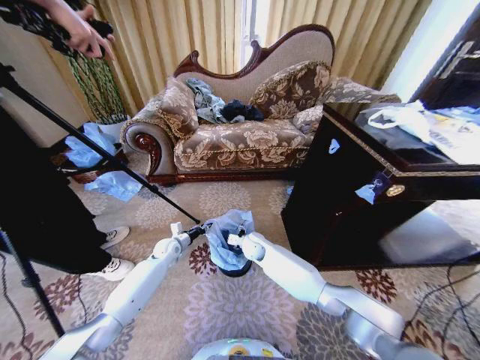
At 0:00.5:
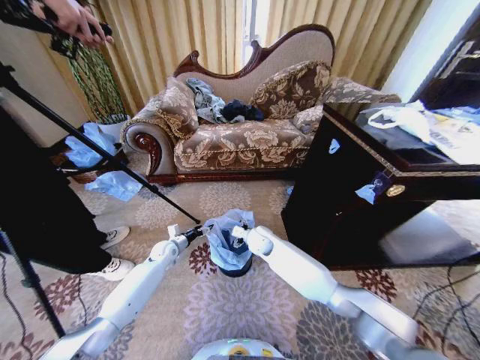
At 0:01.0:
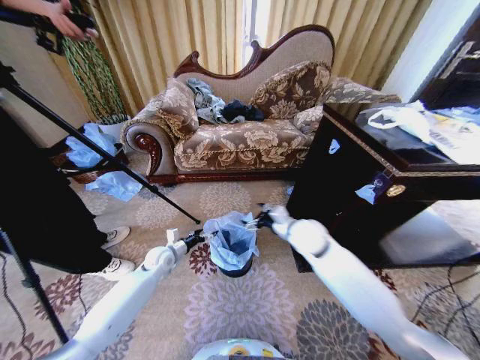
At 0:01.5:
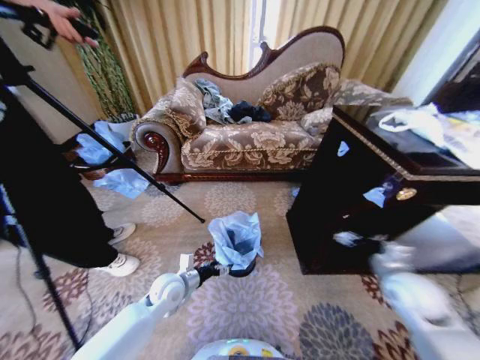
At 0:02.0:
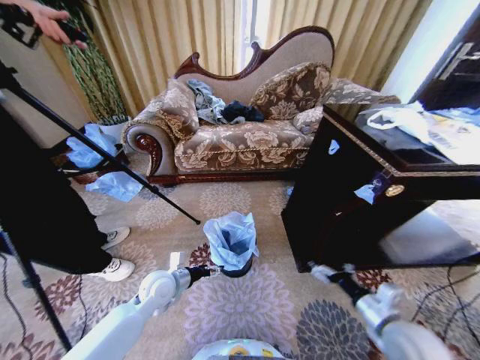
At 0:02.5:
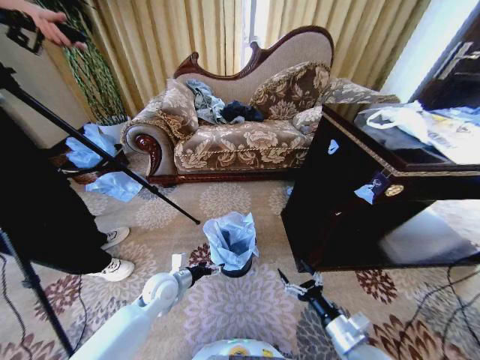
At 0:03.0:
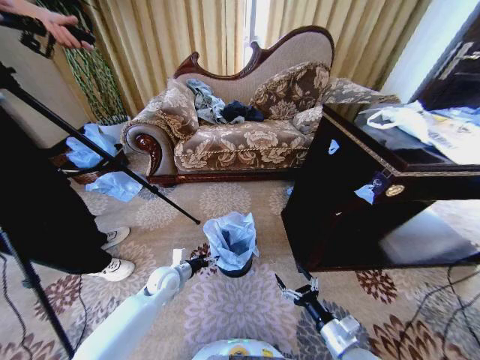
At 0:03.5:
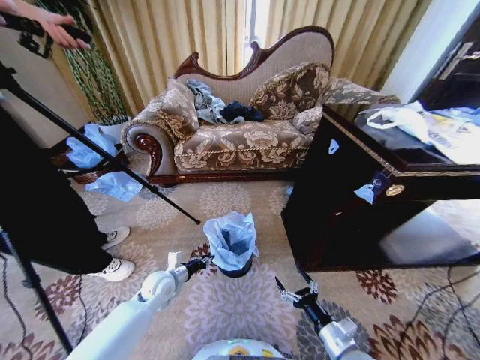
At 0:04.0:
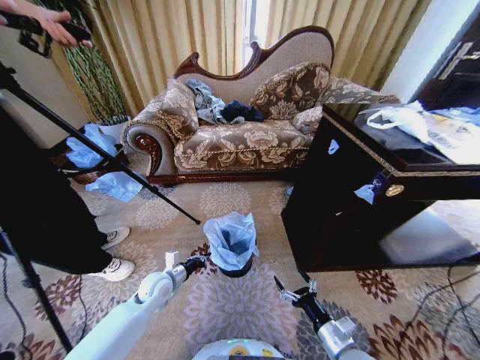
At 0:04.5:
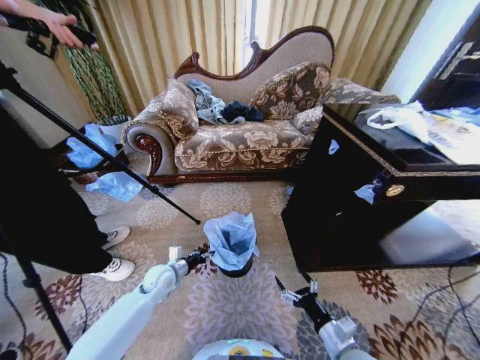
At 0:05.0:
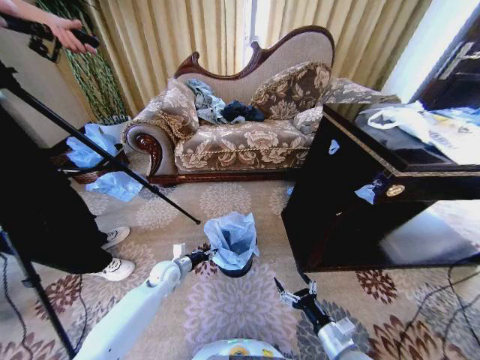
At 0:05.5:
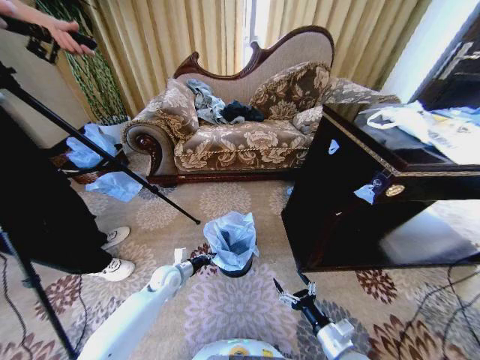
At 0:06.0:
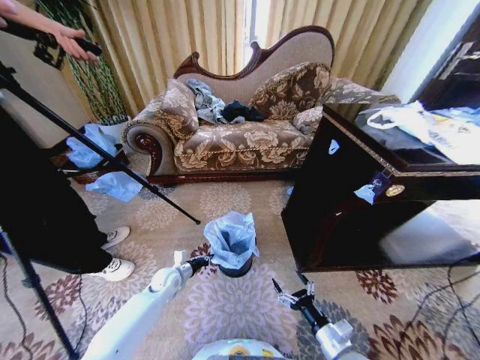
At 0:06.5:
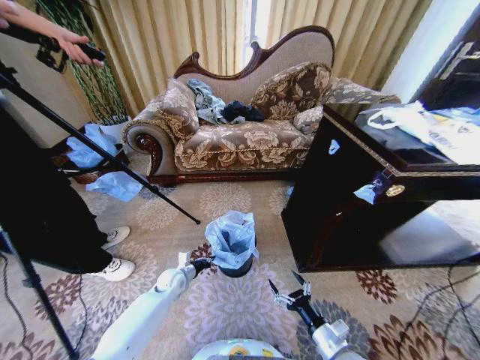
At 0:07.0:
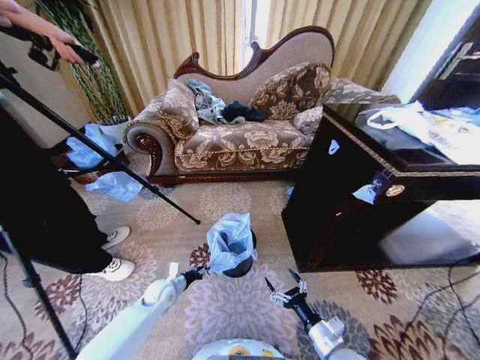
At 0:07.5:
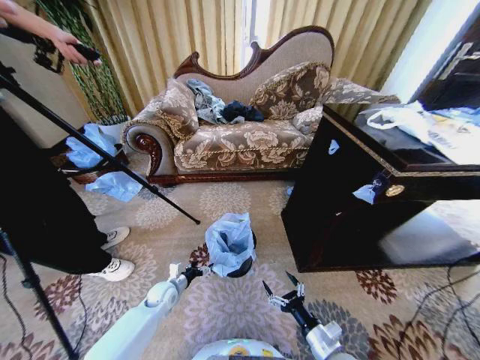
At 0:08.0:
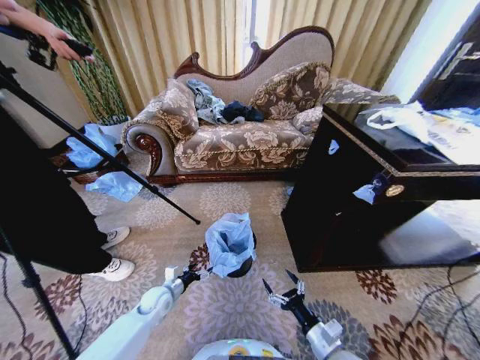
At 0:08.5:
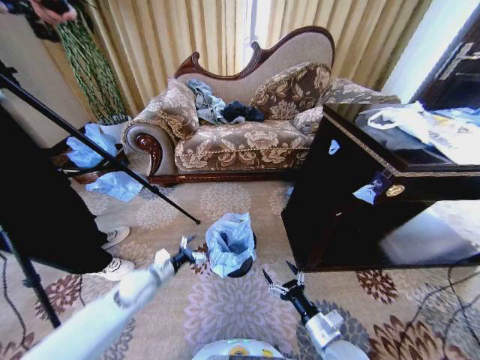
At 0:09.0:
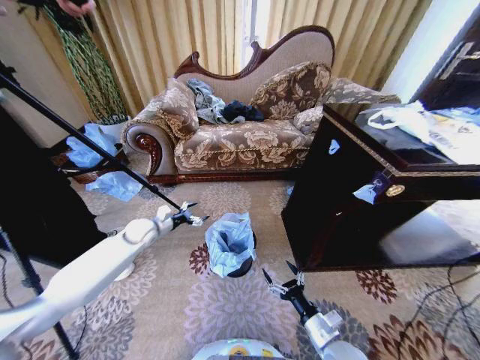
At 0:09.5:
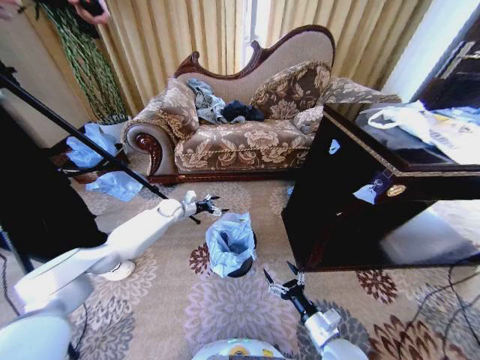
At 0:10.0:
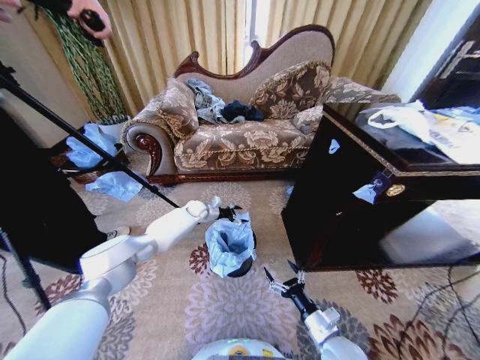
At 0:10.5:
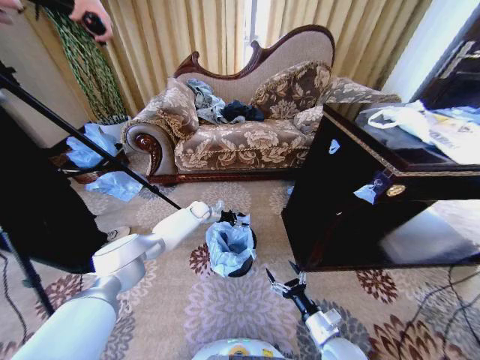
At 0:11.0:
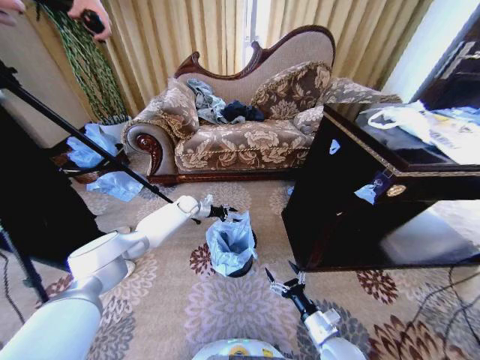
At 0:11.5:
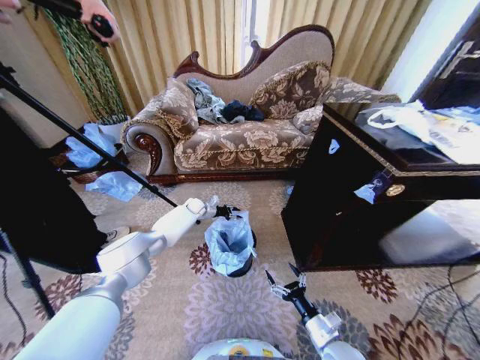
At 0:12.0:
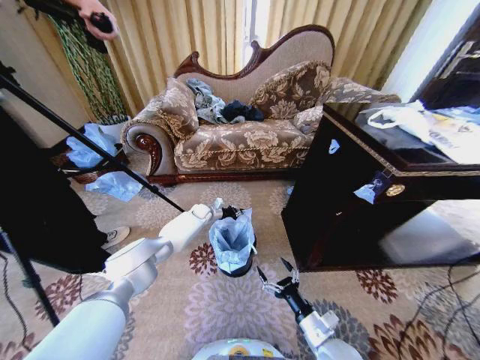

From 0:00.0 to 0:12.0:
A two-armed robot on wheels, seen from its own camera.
Task of the whole recording: Place a garbage bag over the trash bin.
From 0:00.0 to 0:02.0: The left gripper moves backward and upward, roughly 20 cm, and opens up. Meanwhile the right gripper heads to the right and backward, covering about 40 cm.
From 0:02.0 to 0:04.0: The right gripper travels downward and to the left by roughly 10 cm. The left gripper shifts by approximately 5 cm, and closes.
From 0:04.0 to 0:06.0: The left gripper travels downward by approximately 5 cm, and opens, then closes again.
From 0:06.0 to 0:08.0: The left gripper heads backward, covering approximately 5 cm, and opens up.
From 0:08.0 to 0:10.0: The left gripper is displaced forward by about 30 cm.
From 0:10.0 to 0:12.0: The left gripper closes its fingers.

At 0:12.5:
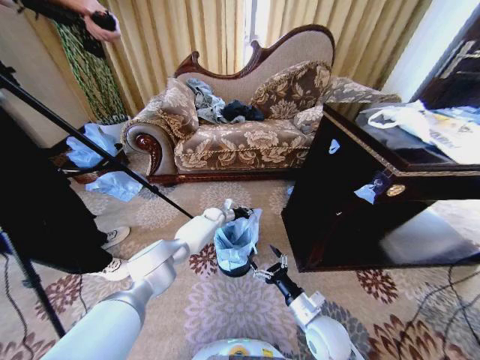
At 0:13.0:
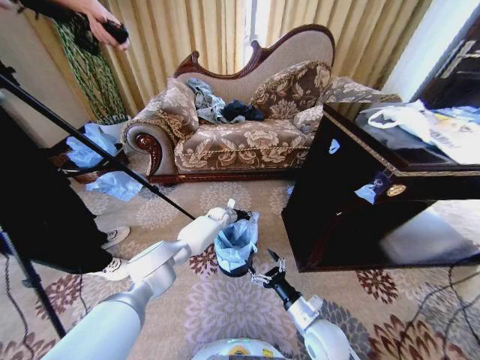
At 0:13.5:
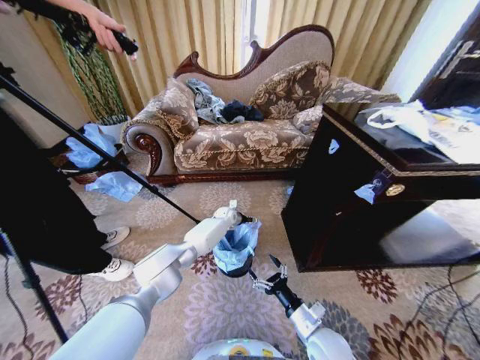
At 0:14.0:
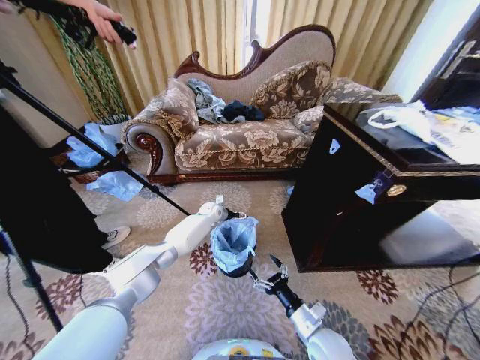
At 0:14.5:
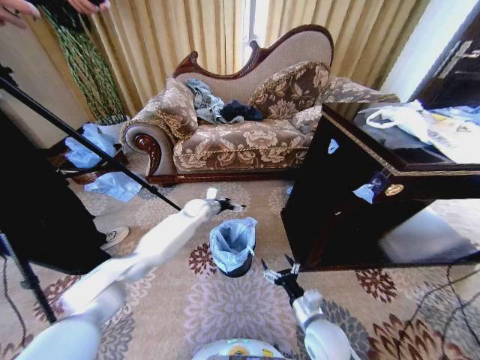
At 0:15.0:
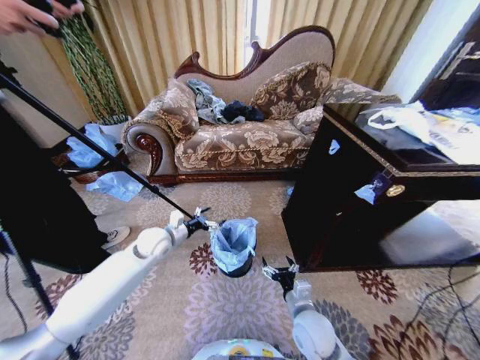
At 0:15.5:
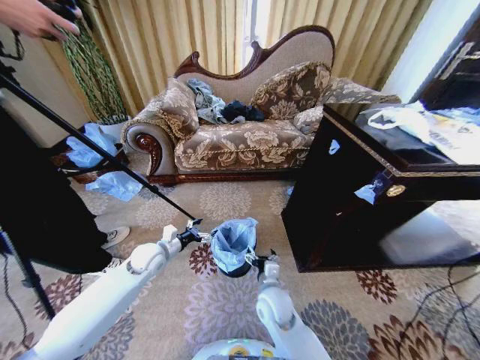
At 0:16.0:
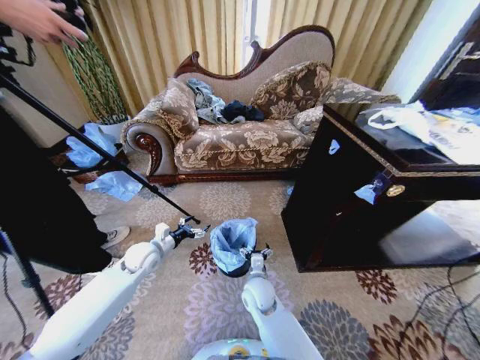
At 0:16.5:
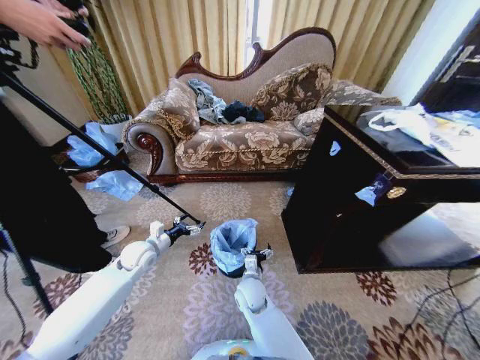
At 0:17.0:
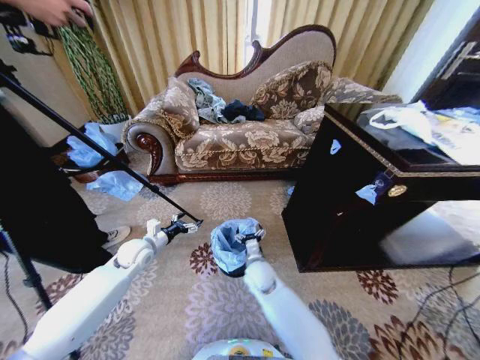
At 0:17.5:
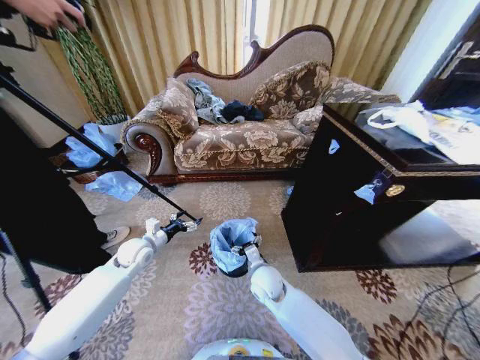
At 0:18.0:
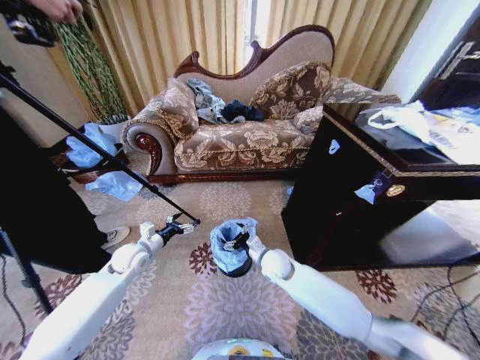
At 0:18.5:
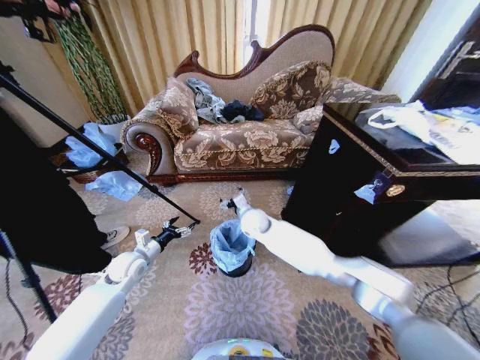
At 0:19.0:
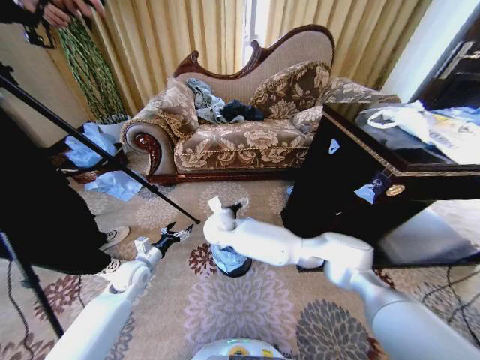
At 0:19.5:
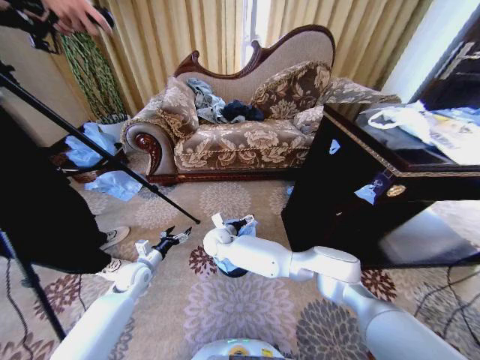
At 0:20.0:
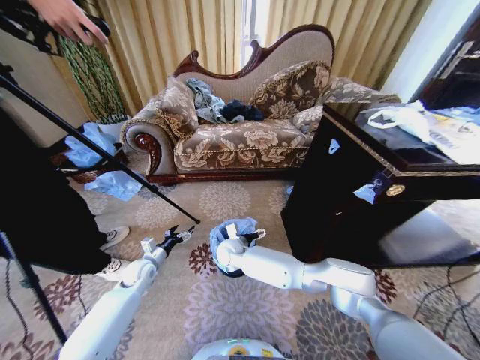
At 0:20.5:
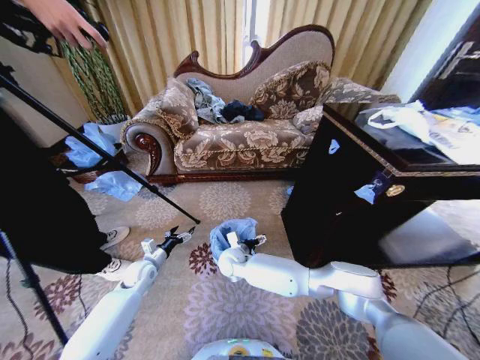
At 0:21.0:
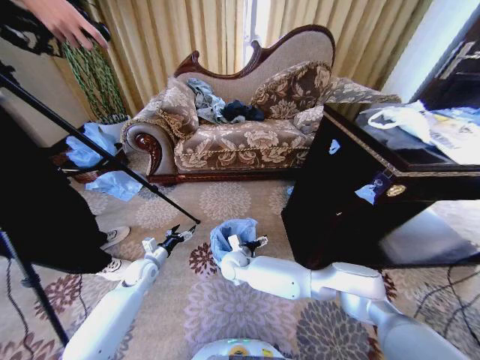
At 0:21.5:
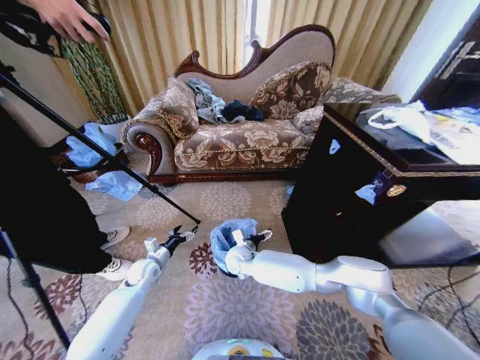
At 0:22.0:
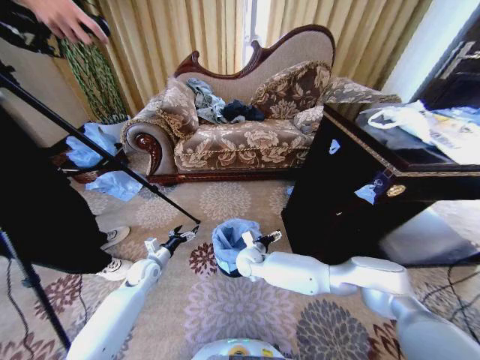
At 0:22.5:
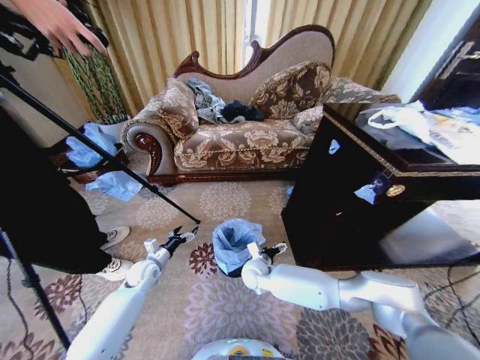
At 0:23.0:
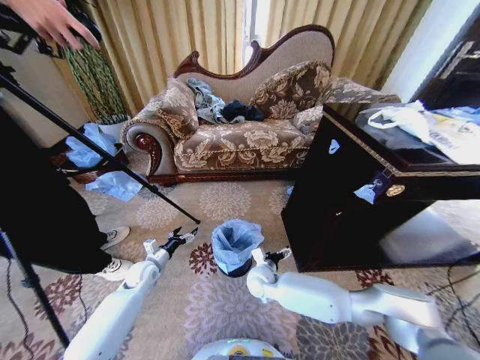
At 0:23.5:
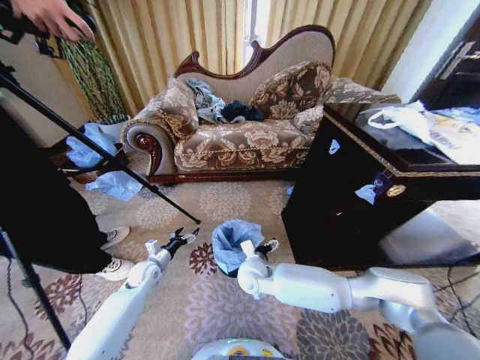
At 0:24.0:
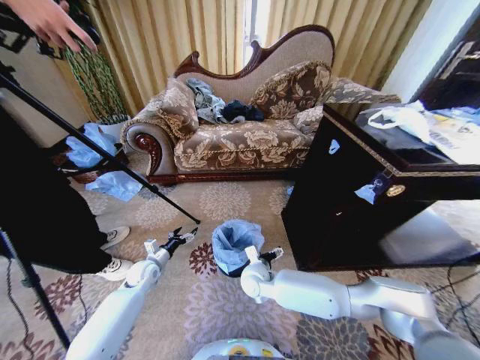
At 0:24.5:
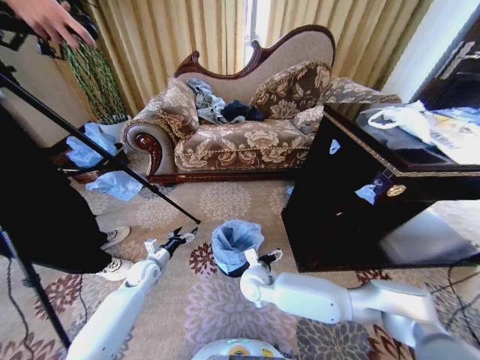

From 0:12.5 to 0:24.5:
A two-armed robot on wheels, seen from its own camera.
Task of the whole recording: Place a garbage bag over the trash bin.
From 0:12.5 to 0:14.5: The left gripper heads upward, covering some 10 cm, and opens.
From 0:14.5 to 0:16.5: The right gripper shifts approximately 20 cm to the left and forward. The left gripper travels backward and to the left by about 25 cm.
From 0:16.5 to 0:18.5: The right gripper moves forward and upward, about 25 cm.
From 0:18.5 to 0:20.5: The left gripper goes about 5 cm downward, while the right gripper heads downward, backward and to the left, covering approximately 15 cm.
From 0:20.5 to 0:22.5: The right gripper is displaced to the right by approximately 10 cm.
From 0:22.5 to 0:24.5: The right gripper moves some 5 cm.

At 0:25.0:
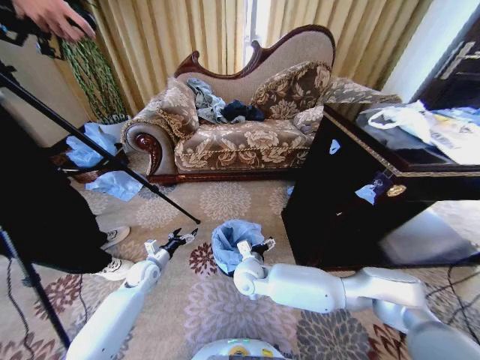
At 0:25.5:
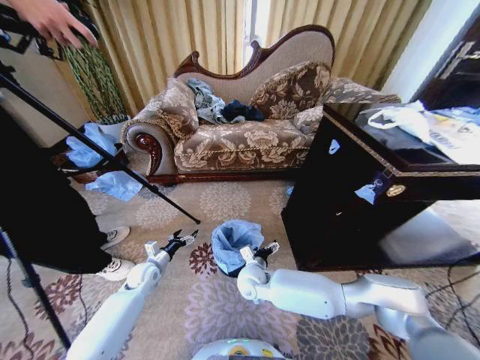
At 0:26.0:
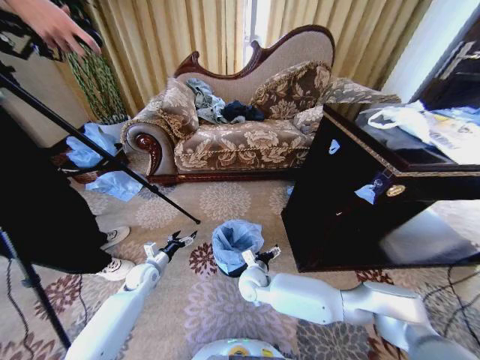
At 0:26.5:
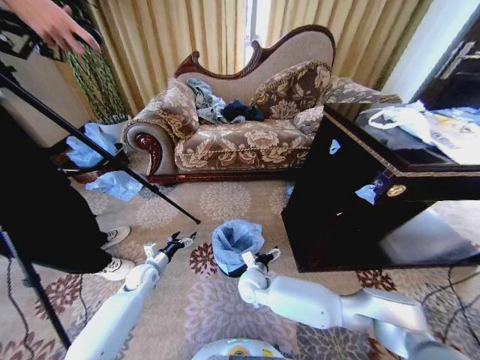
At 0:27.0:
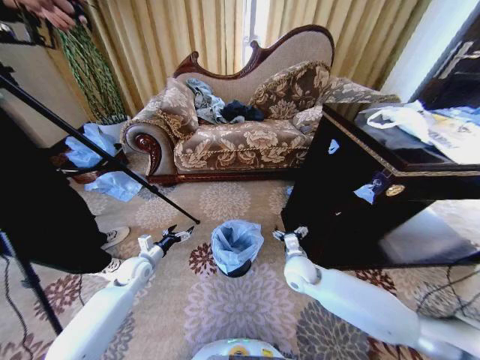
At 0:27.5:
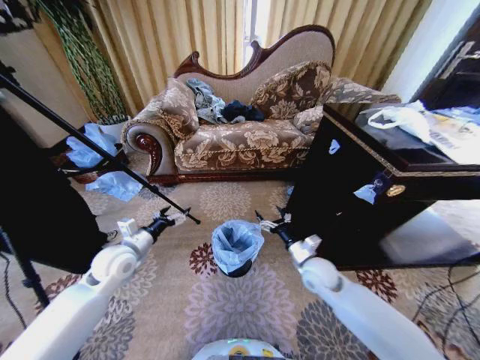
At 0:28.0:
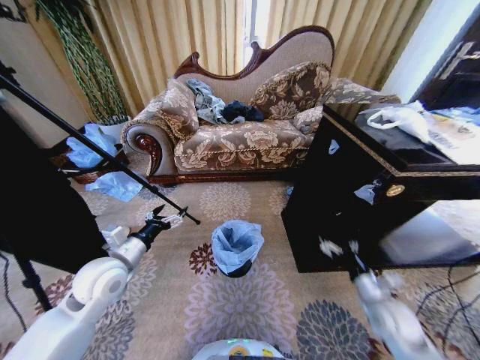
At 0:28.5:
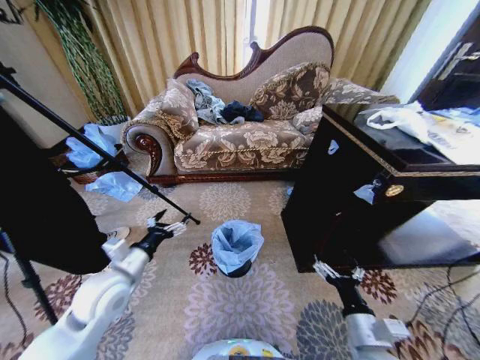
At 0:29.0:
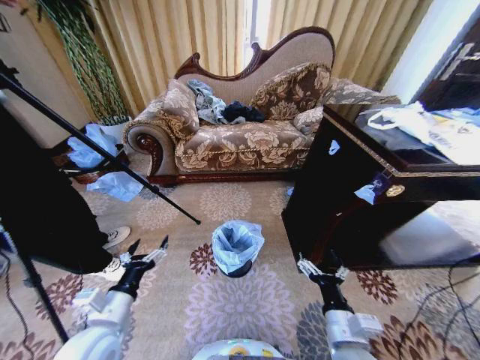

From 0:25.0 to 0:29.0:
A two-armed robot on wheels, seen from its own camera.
Task of the whole recording: Place a garbage bag over the trash bin.
From 0:25.0 to 0:27.0: The right gripper moves to the right, some 15 cm.
From 0:27.0 to 0:29.0: The left gripper travels backward and upward by some 25 cm, while the right gripper heads backward, covering approximately 20 cm.
